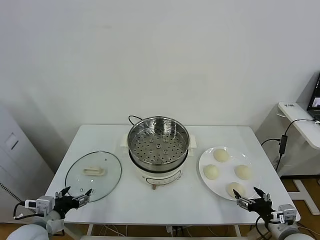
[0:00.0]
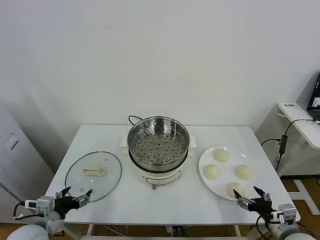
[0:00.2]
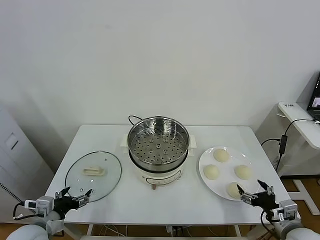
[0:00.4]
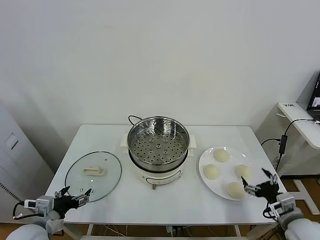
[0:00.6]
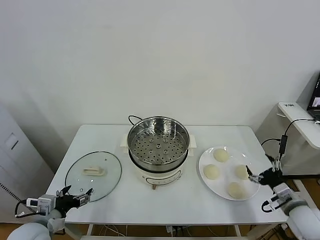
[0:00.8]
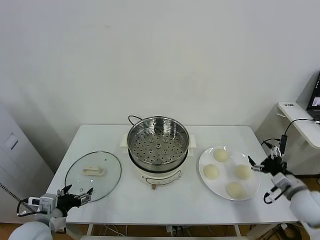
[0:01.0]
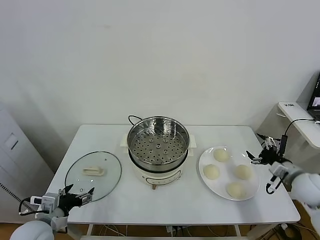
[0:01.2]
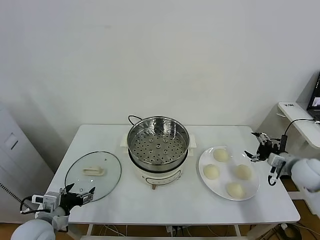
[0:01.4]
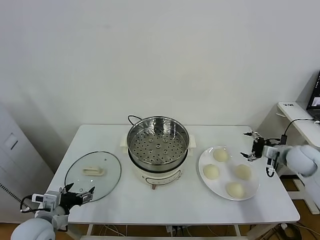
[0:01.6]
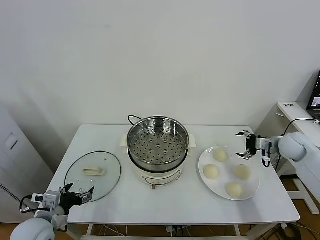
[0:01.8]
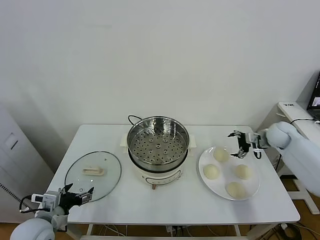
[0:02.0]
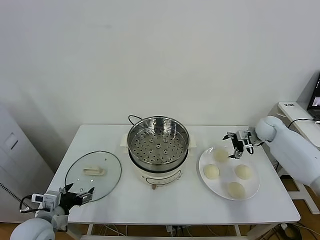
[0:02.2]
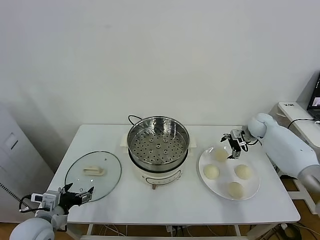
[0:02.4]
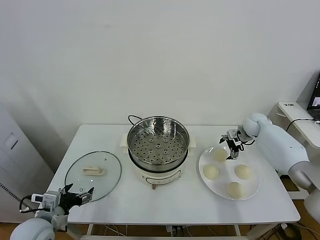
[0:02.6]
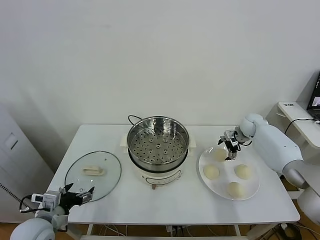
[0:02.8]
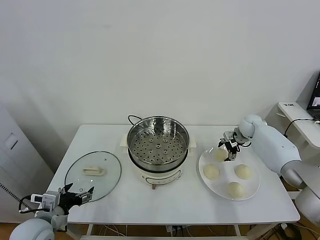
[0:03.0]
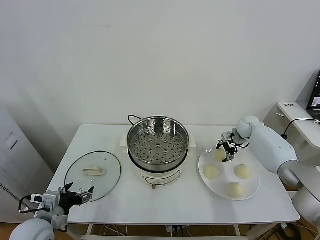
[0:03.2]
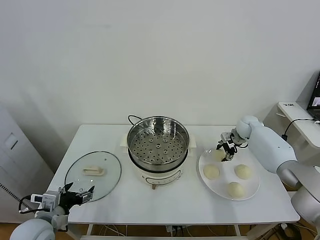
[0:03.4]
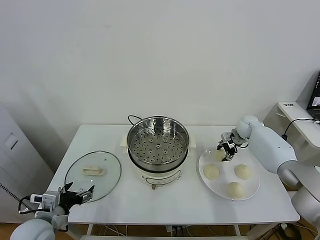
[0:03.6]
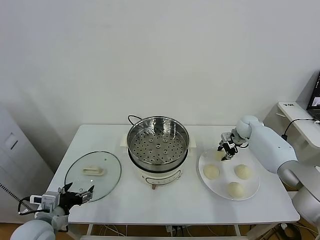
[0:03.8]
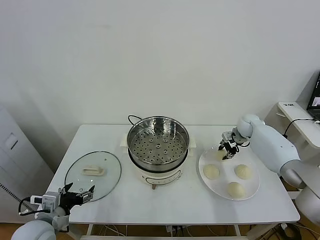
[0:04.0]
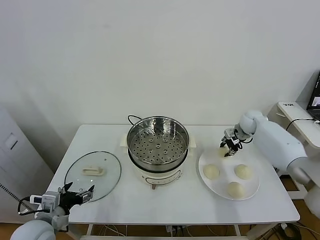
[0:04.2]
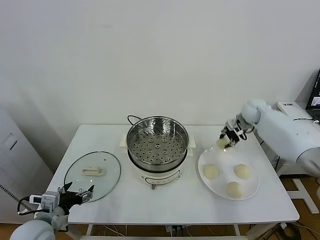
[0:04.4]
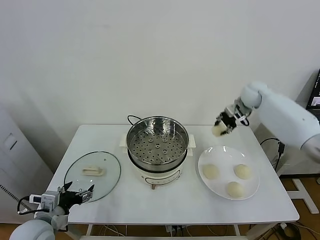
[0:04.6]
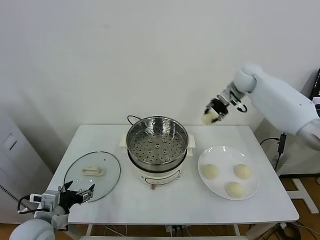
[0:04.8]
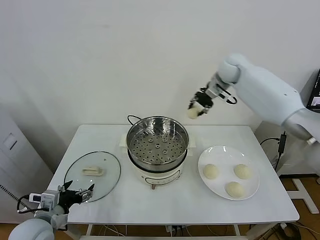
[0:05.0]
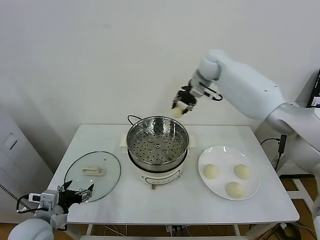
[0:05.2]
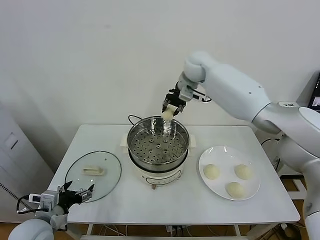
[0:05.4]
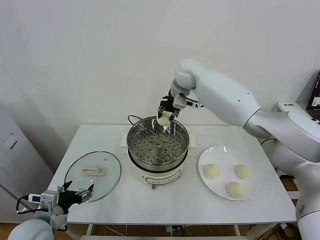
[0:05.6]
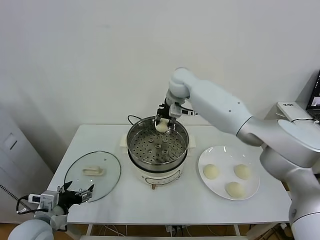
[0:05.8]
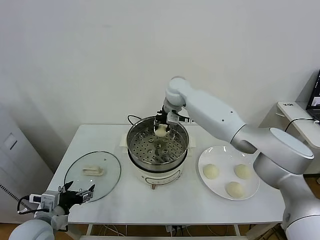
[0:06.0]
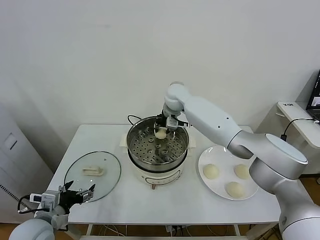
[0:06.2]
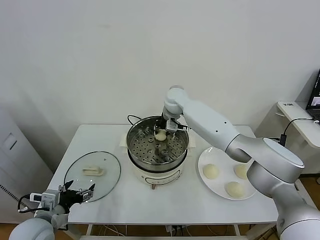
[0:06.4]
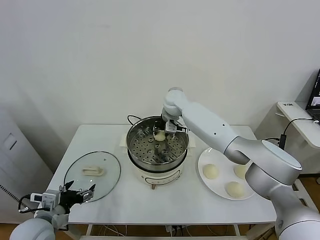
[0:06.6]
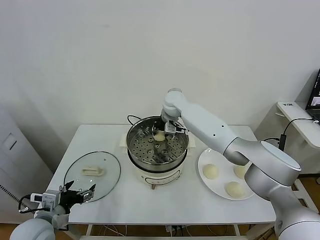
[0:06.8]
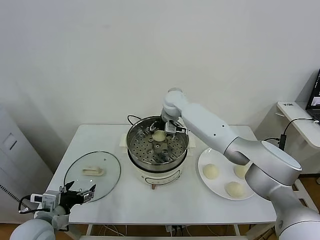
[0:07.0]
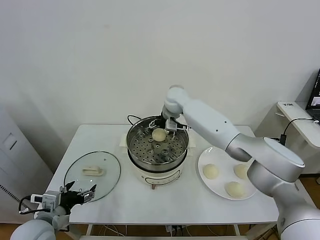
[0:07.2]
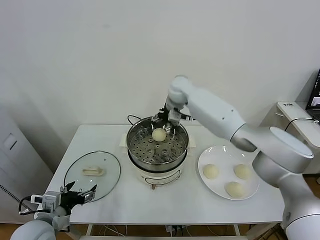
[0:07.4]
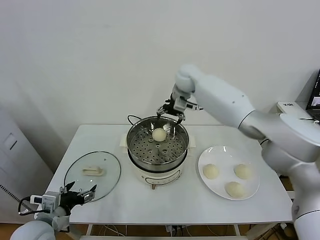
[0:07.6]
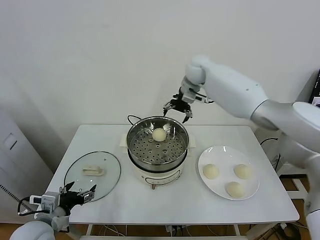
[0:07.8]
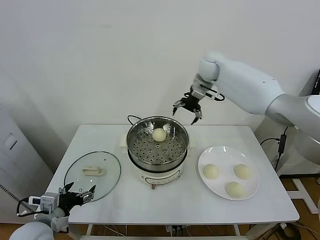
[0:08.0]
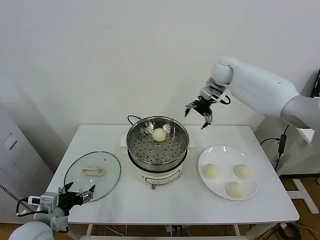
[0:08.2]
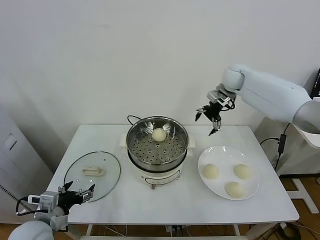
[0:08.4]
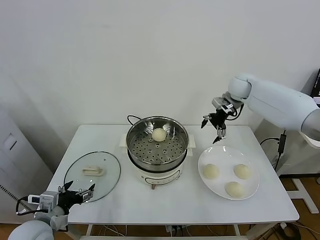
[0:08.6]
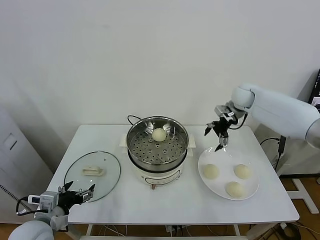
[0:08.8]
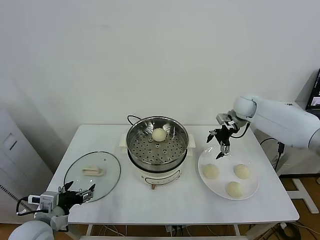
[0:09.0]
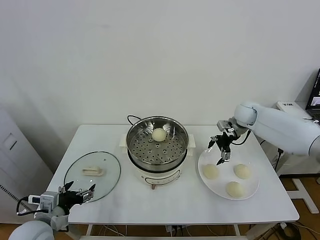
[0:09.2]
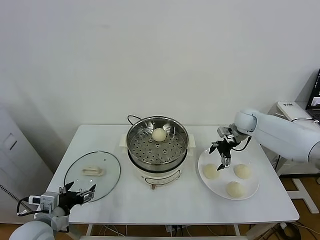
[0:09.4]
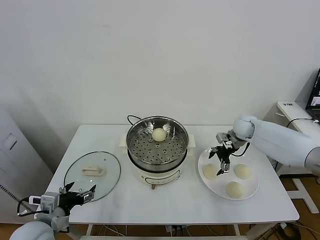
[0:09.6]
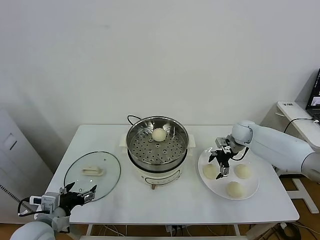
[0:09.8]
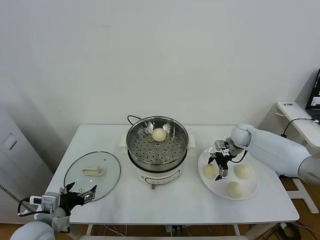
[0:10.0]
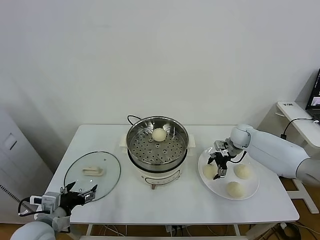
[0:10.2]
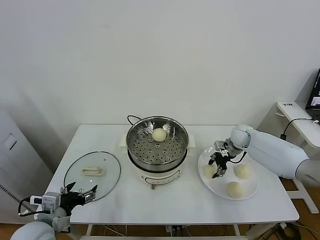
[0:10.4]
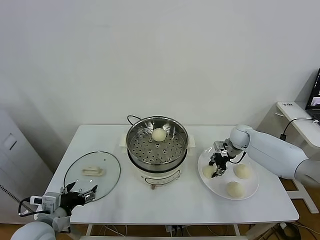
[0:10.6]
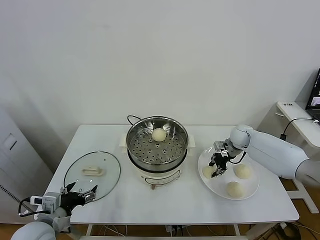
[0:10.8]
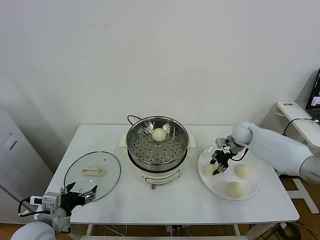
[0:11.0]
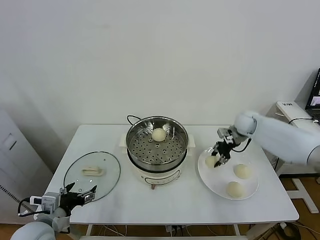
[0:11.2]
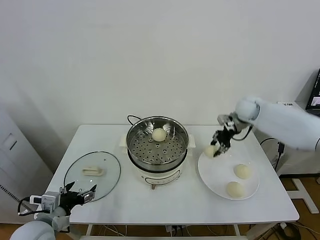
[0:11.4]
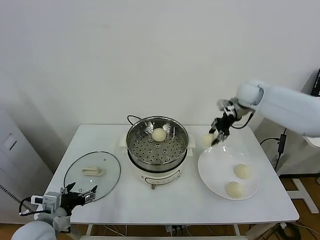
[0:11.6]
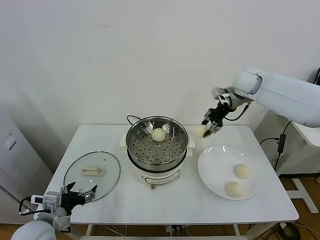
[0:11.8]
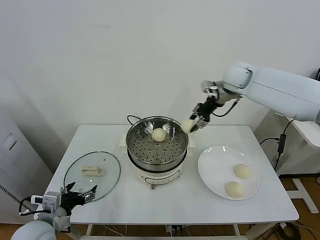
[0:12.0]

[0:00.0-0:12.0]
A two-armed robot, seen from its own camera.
Task of the whole recording: take steamed baozi put them in steamer.
Step, 0:00.0 to 0:03.2: Grasp the baozi in the plate with right gripper.
Step, 0:03.4 to 0:07.0: Place the baozi on the steamer with right gripper.
Step, 0:07.4 to 0:10.4: Grasp the baozi in the plate with right gripper.
0:01.6 to 0:03.0: The right gripper heads forward and to the left, covering about 20 cm.
0:03.0 to 0:04.4: The right gripper is displaced upward by about 10 cm, and closes its fingers.
0:04.4 to 0:06.0: The right gripper heads to the left, covering some 30 cm.
0:06.0 to 0:07.6: The right gripper shifts by roughly 5 cm, and opens its fingers.
0:07.6 to 0:09.0: The right gripper shifts about 25 cm to the right and downward.
0:09.0 to 0:10.4: The right gripper moves downward, approximately 15 cm, and closes up.
0:10.4 to 0:12.0: The right gripper shifts some 25 cm upward.

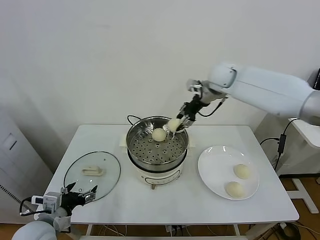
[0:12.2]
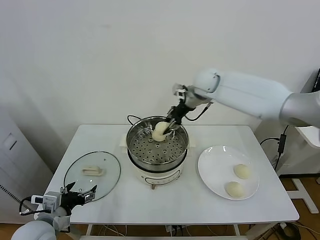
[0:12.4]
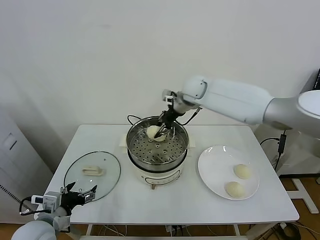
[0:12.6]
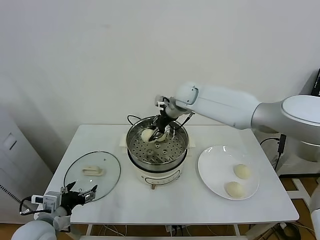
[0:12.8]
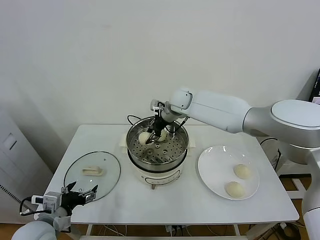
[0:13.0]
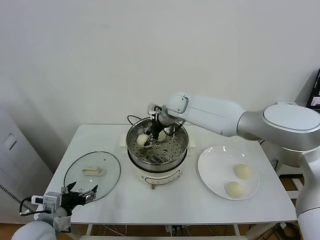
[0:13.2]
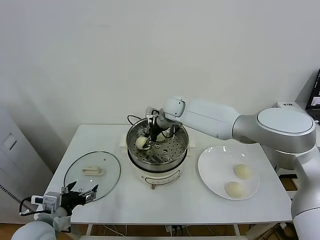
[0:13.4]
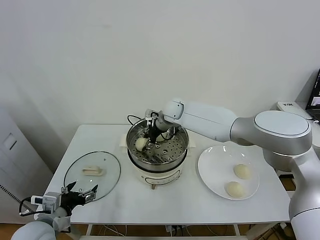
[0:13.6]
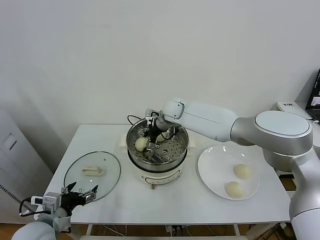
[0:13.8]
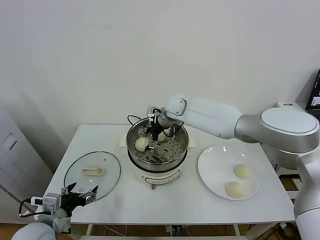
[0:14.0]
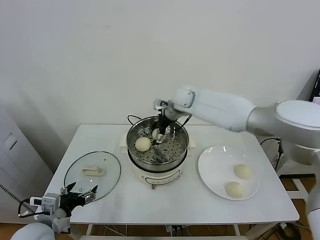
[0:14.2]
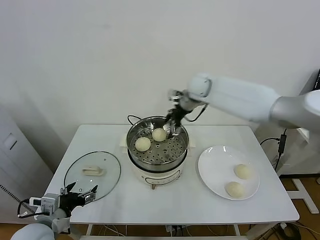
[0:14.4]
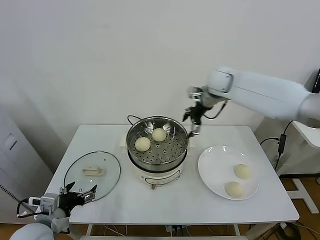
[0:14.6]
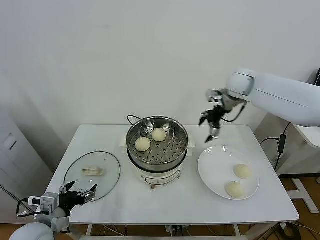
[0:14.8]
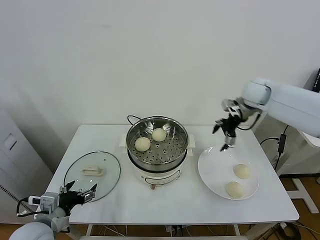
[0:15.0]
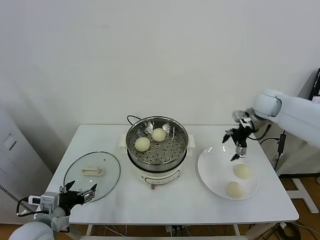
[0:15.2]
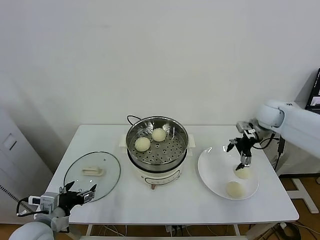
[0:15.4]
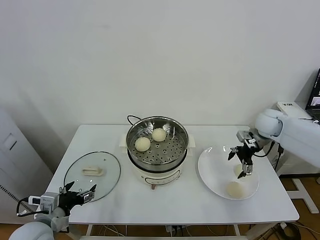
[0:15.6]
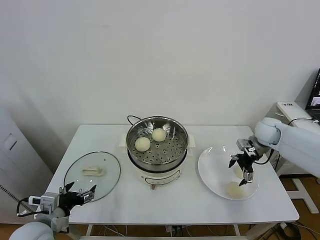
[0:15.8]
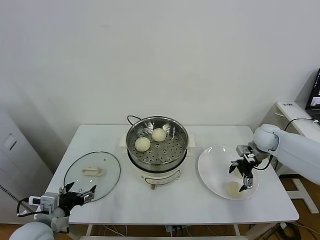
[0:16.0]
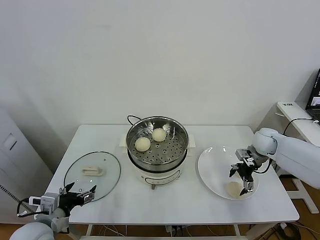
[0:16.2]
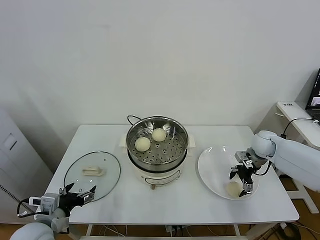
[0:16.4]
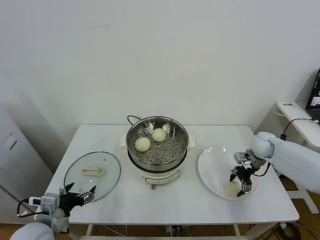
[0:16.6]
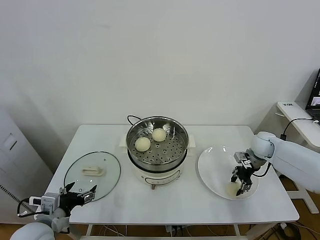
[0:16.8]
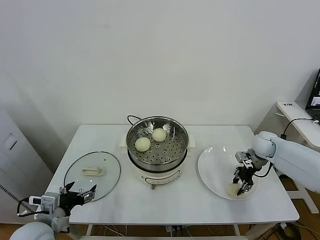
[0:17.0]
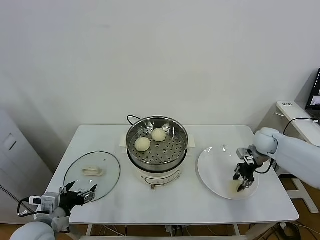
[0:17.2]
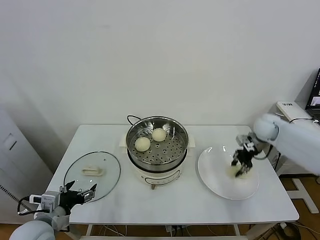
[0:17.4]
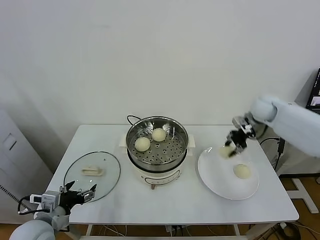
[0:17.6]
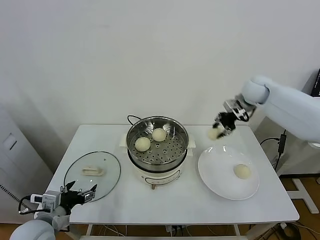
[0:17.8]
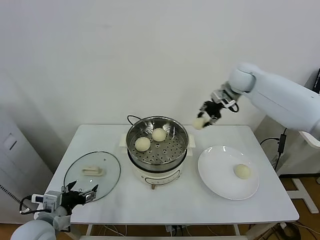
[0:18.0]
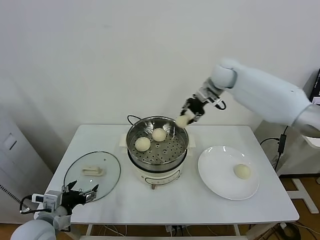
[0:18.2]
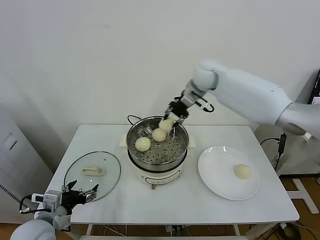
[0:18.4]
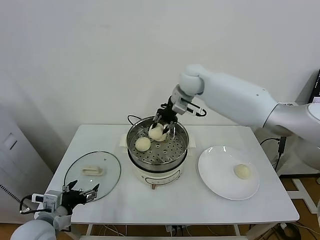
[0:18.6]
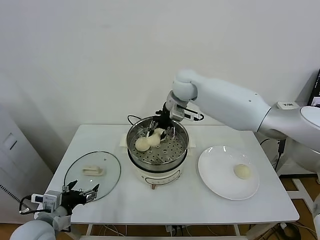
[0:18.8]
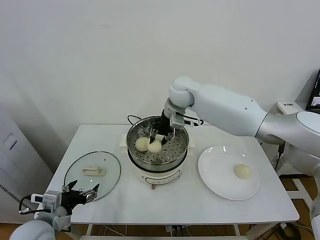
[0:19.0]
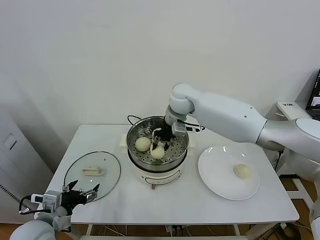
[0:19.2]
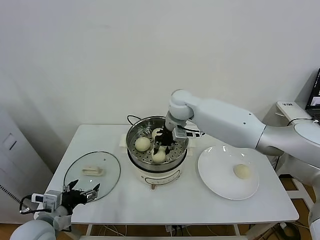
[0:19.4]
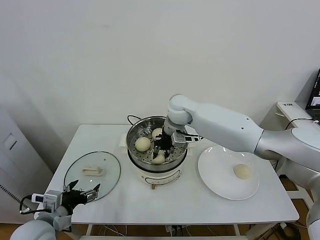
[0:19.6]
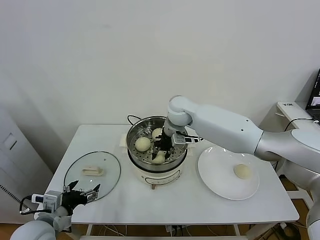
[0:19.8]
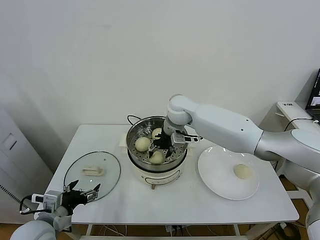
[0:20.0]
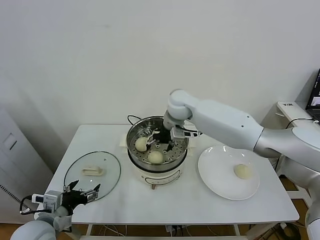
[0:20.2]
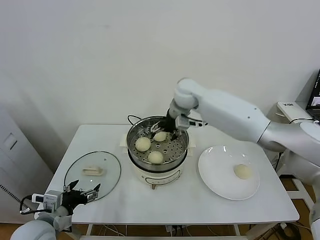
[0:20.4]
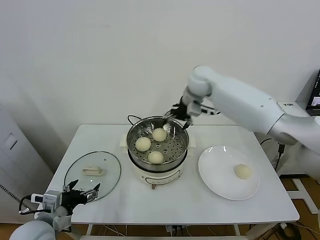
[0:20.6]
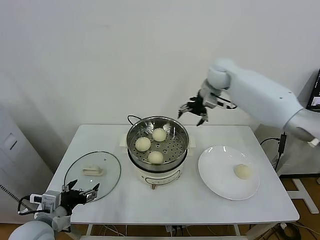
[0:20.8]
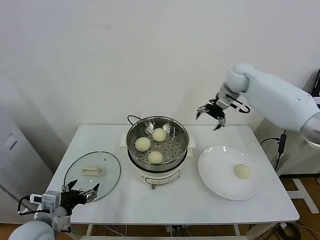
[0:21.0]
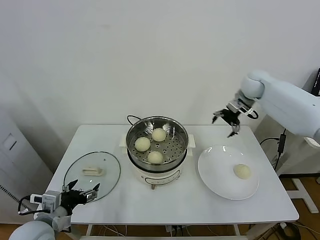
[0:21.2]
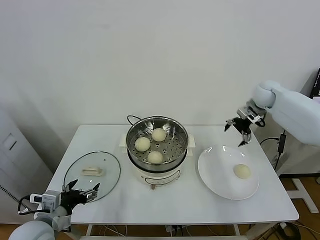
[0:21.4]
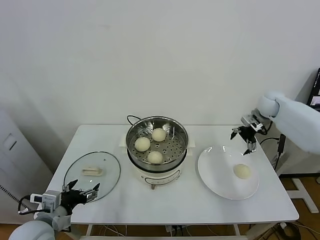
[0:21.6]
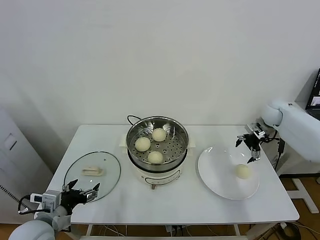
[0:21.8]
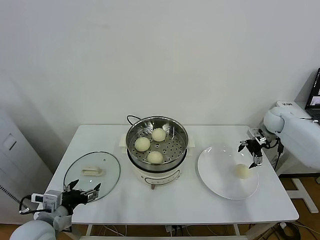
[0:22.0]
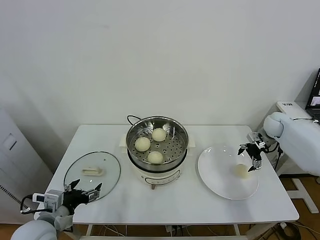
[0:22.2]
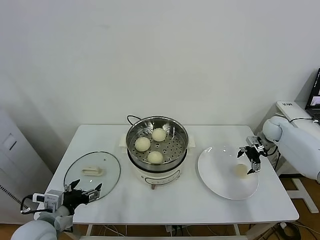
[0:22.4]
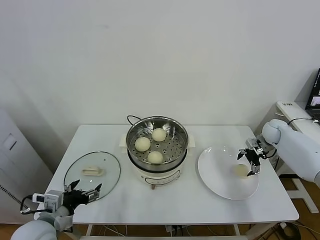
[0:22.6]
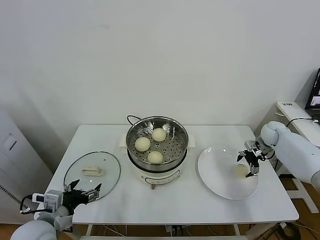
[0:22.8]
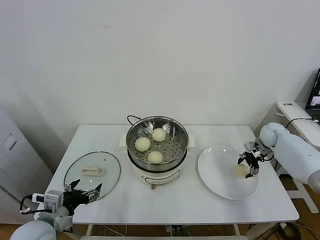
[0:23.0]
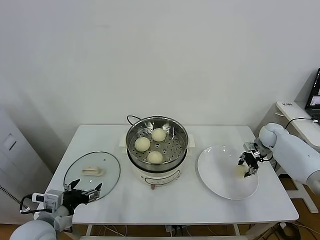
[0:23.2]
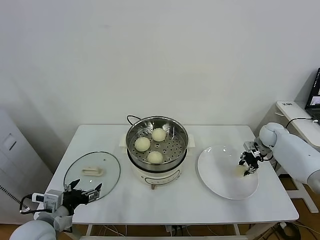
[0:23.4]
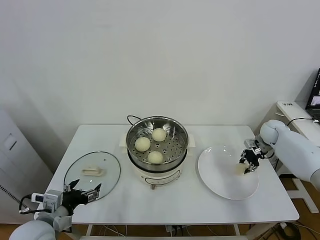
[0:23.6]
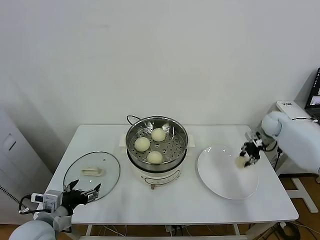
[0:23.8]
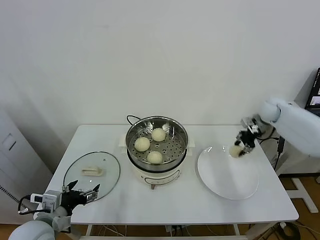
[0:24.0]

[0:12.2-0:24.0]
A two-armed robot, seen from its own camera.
Task of the whole recording: take steamed baozi put them in steamer.
Step, 0:14.2 to 0:16.6: Grasp the baozi in the plate with right gripper.
Step, 0:16.8 to 0:20.2: Place the baozi on the steamer with right gripper.
Step, 0:20.4 to 0:23.2: Grasp the baozi in the plate with right gripper.
0:12.2 to 0:13.6: The right gripper goes roughly 20 cm to the left and downward, and opens its fingers.
0:13.6 to 0:15.2: The right gripper goes approximately 30 cm to the right, and opens its fingers.
0:15.2 to 0:16.6: The right gripper travels downward by some 15 cm, and closes up.
0:16.6 to 0:18.2: The right gripper heads upward, to the left and forward, covering some 30 cm, and closes up.
0:18.2 to 0:19.6: The right gripper goes roughly 20 cm to the left, downward and backward.
0:19.6 to 0:21.0: The right gripper goes about 20 cm to the right and upward, and opens its fingers.
0:21.0 to 0:22.6: The right gripper travels downward and to the right by approximately 30 cm.
0:22.6 to 0:24.0: The right gripper heads upward, covering about 10 cm, and closes up.
